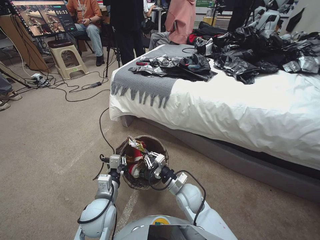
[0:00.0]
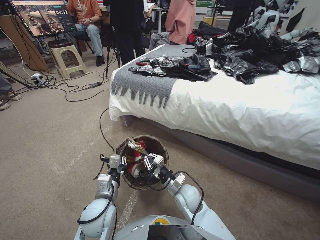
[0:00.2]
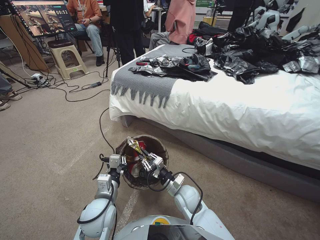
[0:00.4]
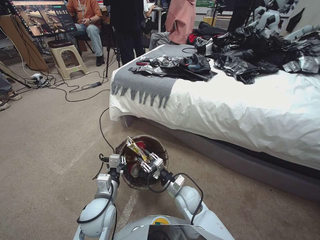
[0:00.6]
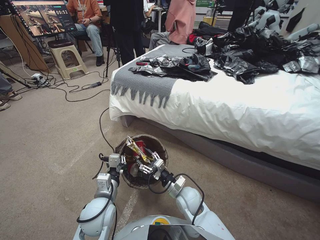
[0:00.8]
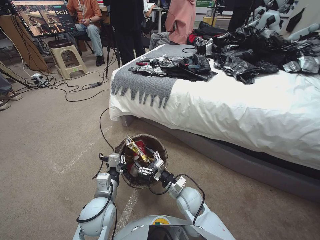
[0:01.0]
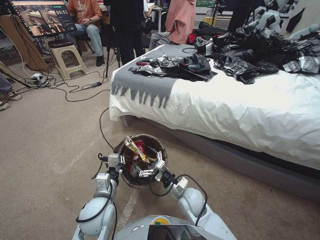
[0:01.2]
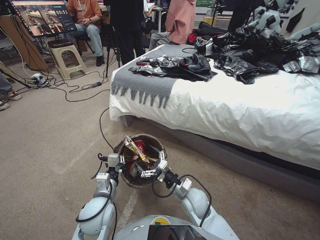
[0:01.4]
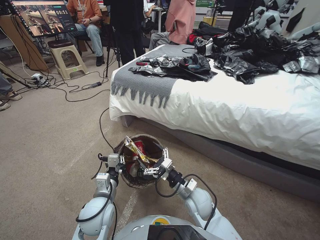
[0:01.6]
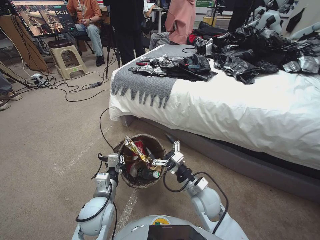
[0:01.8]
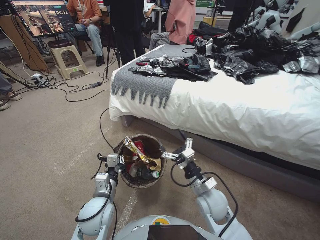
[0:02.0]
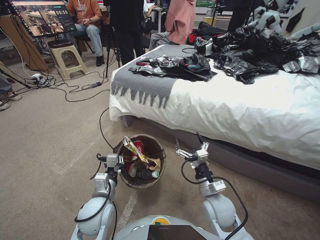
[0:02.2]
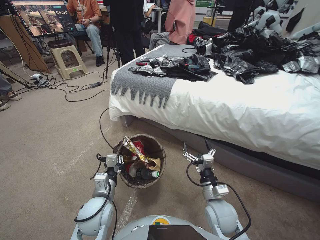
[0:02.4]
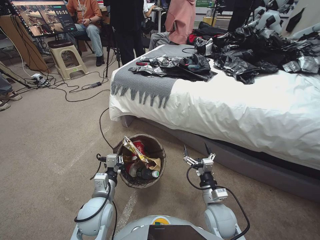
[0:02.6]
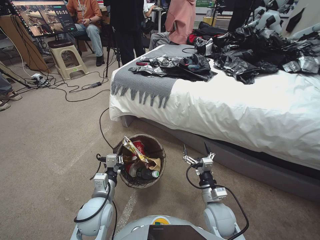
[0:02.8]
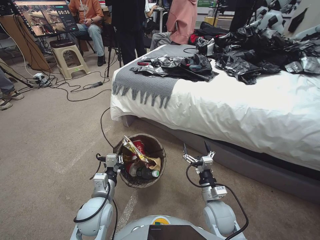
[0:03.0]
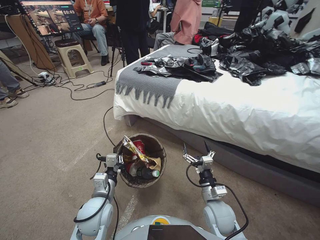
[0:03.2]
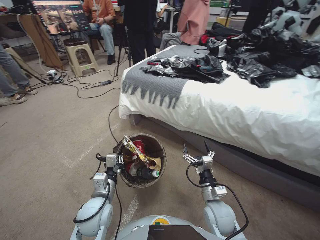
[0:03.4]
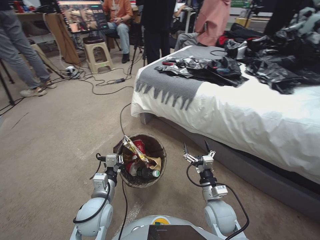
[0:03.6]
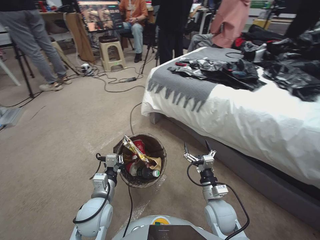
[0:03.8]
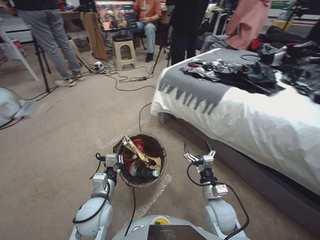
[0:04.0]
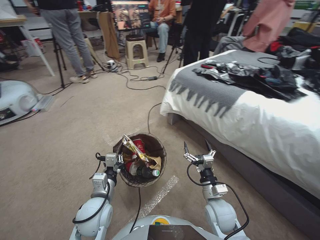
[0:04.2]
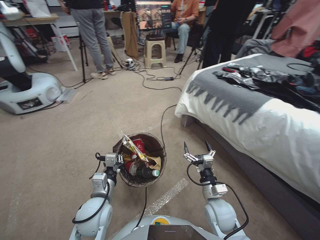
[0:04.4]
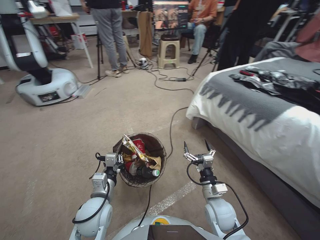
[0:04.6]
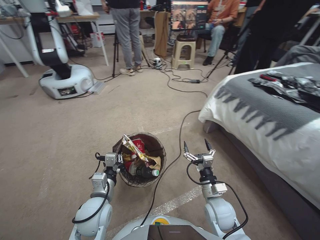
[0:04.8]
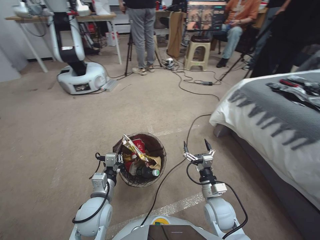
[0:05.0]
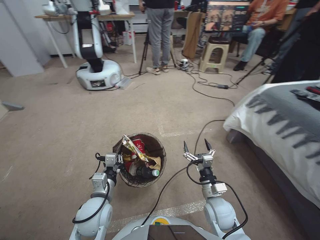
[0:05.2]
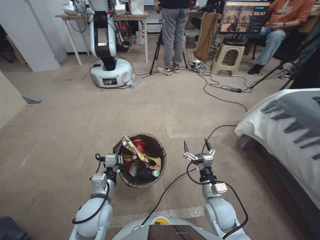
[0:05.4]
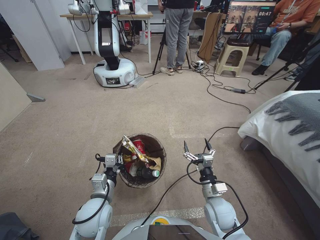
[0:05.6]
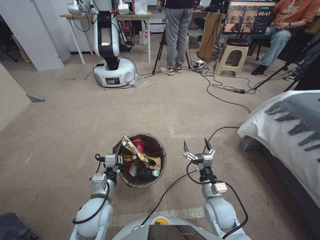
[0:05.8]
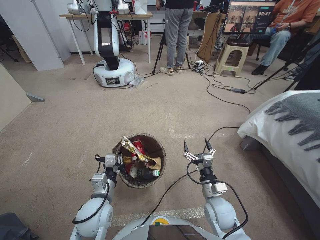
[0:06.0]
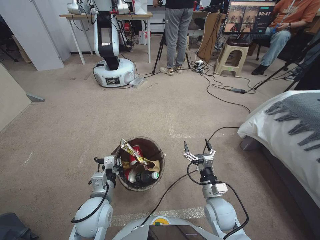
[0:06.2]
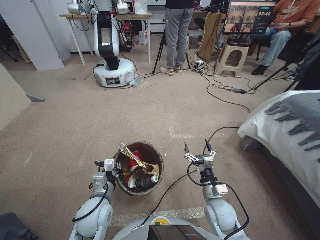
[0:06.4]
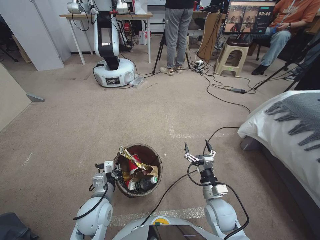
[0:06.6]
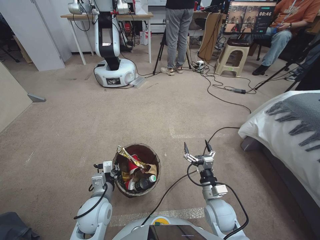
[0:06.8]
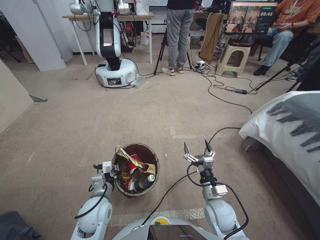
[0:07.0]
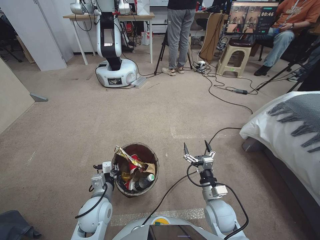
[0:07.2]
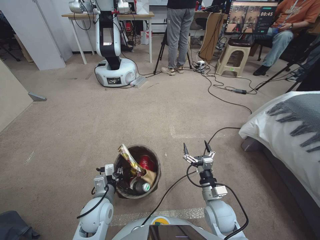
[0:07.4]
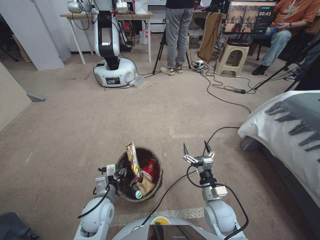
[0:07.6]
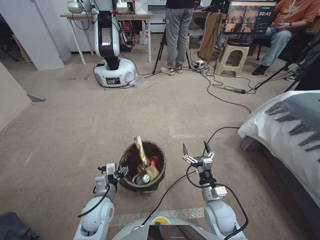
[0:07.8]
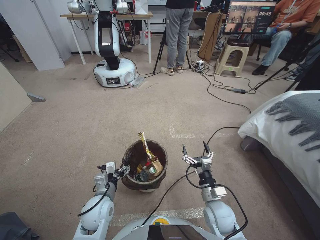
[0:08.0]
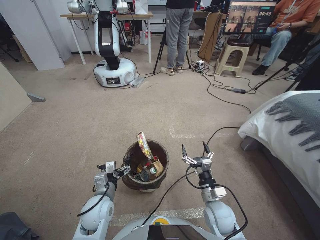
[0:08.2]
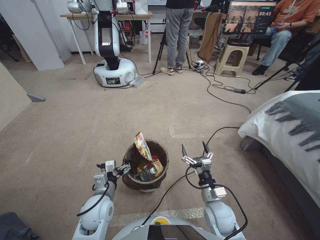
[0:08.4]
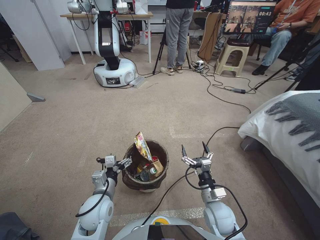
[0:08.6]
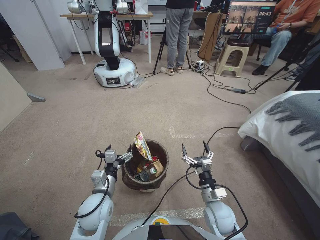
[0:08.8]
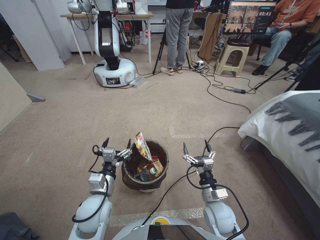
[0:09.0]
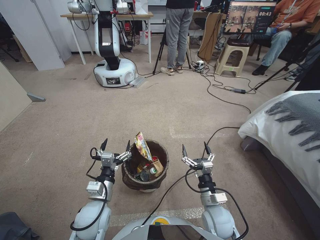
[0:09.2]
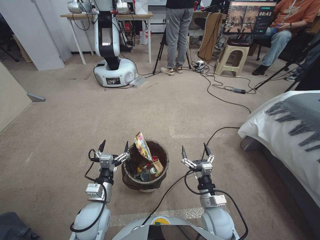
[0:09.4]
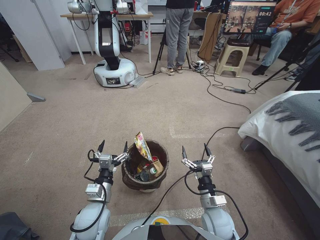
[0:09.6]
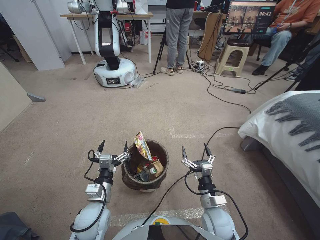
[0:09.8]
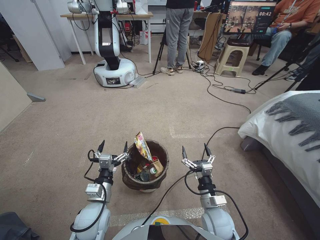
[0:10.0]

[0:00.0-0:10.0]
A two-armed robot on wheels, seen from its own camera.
Task of the whole recording: Pick up the trash bin, then pick up the garbage from the floor and place it into the trash bin.
0:00.0 to 0:01.4: The right gripper opens.
0:01.4 to 0:02.8: The right gripper heads to the right and backward, covering some 10 cm.
0:07.2 to 0:08.6: The left gripper opens.

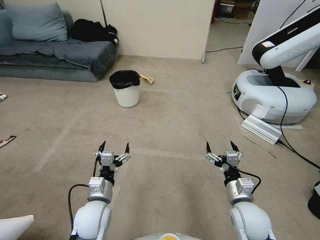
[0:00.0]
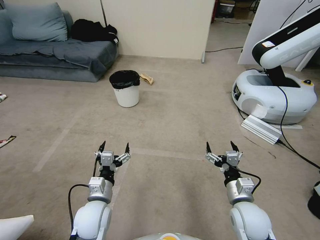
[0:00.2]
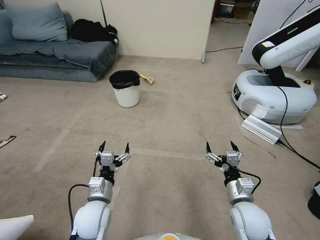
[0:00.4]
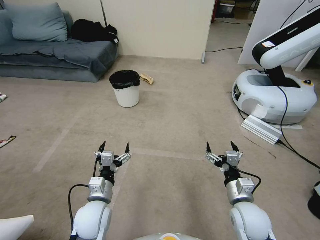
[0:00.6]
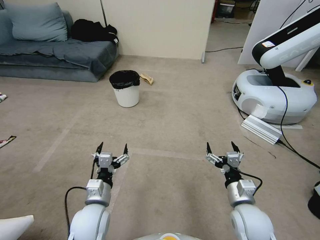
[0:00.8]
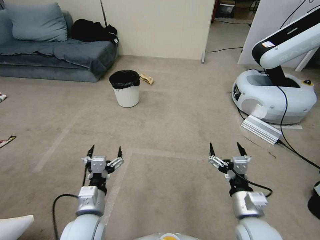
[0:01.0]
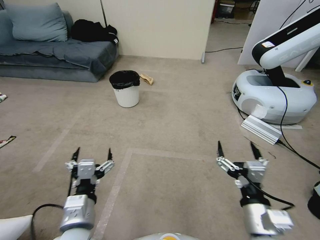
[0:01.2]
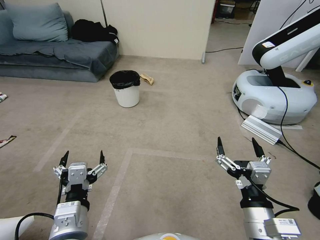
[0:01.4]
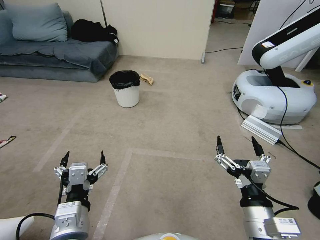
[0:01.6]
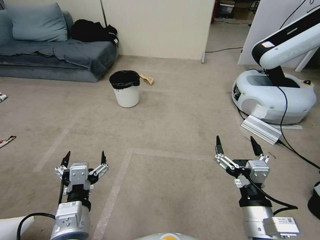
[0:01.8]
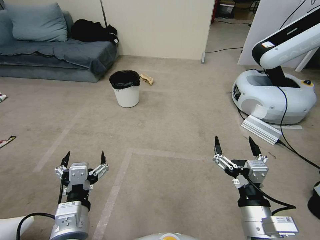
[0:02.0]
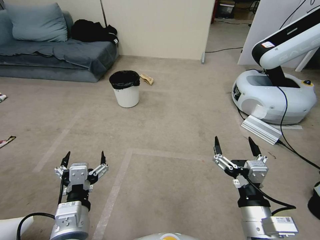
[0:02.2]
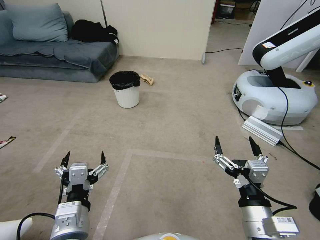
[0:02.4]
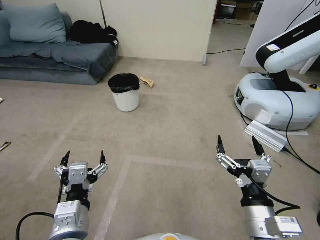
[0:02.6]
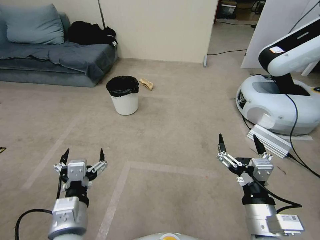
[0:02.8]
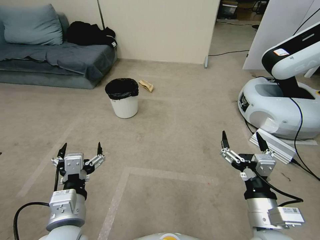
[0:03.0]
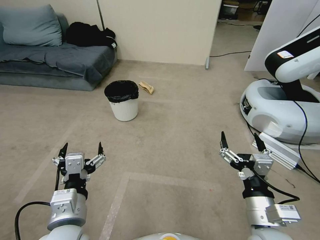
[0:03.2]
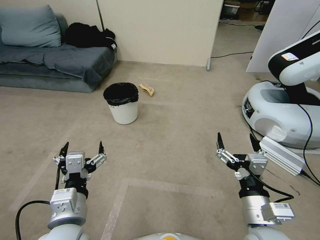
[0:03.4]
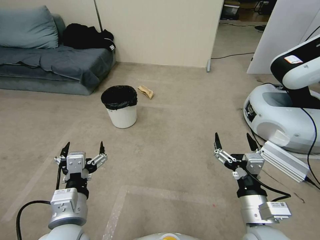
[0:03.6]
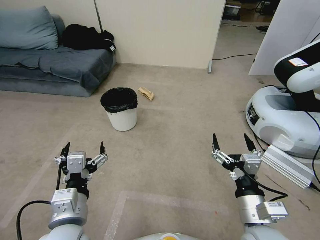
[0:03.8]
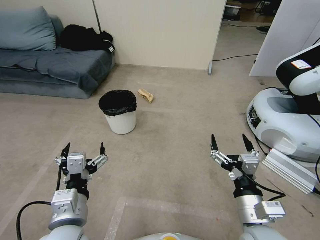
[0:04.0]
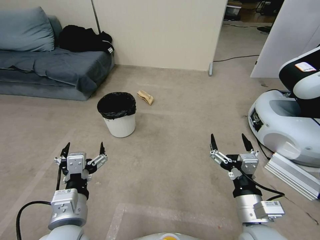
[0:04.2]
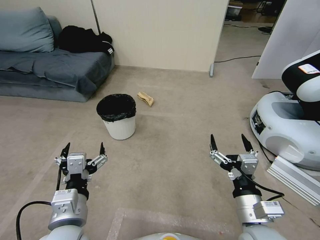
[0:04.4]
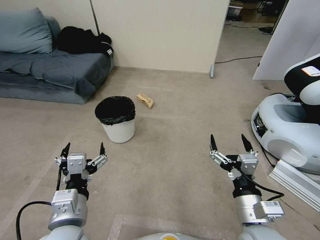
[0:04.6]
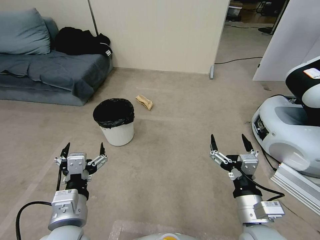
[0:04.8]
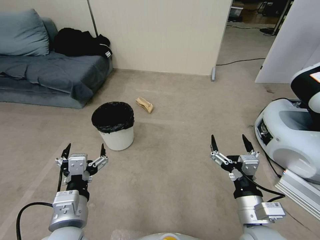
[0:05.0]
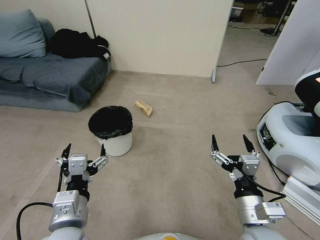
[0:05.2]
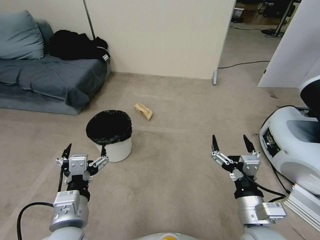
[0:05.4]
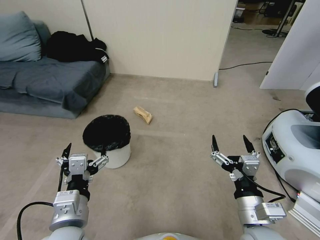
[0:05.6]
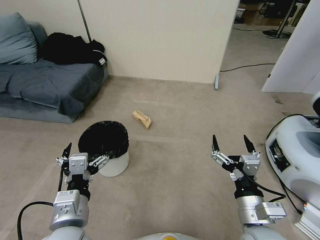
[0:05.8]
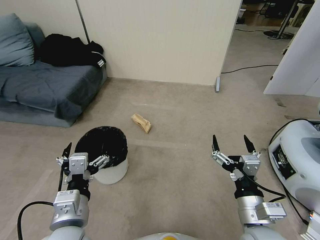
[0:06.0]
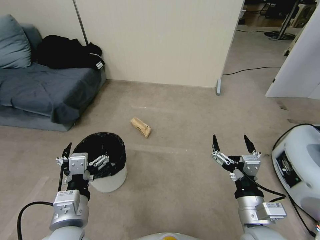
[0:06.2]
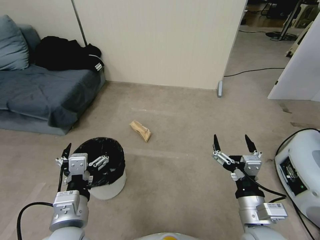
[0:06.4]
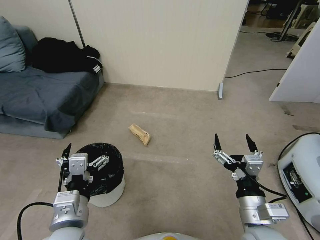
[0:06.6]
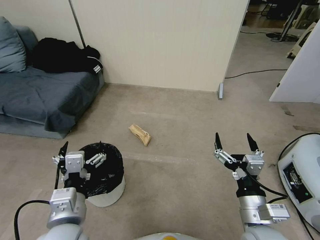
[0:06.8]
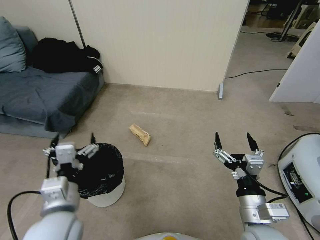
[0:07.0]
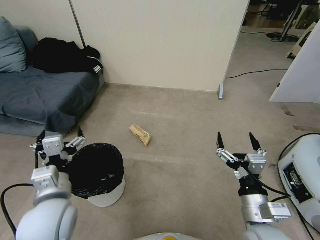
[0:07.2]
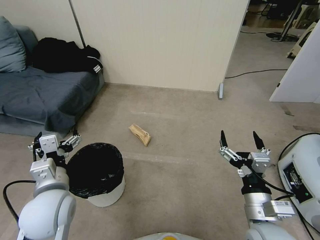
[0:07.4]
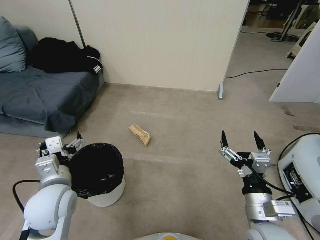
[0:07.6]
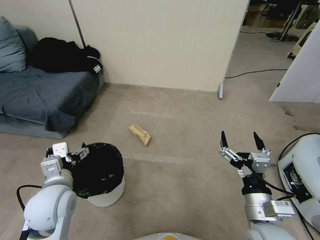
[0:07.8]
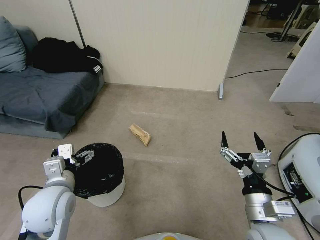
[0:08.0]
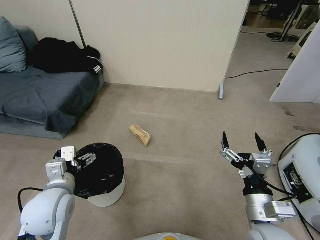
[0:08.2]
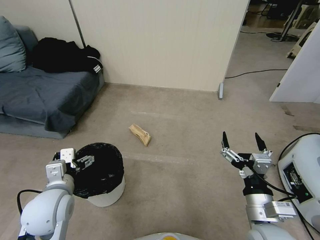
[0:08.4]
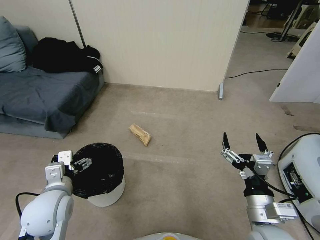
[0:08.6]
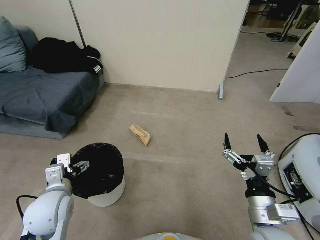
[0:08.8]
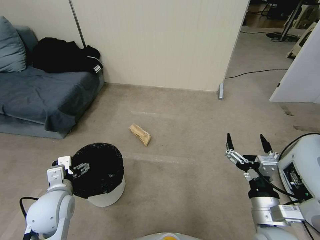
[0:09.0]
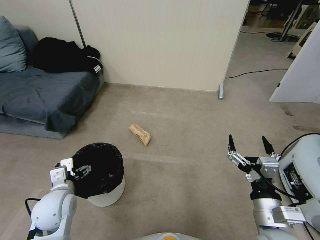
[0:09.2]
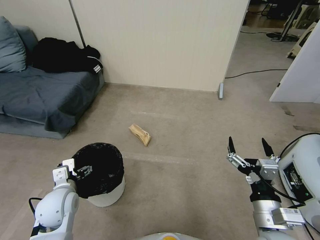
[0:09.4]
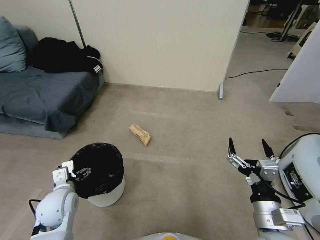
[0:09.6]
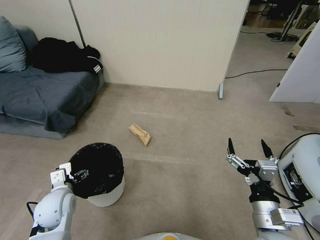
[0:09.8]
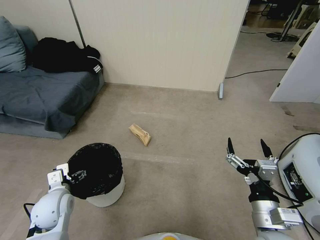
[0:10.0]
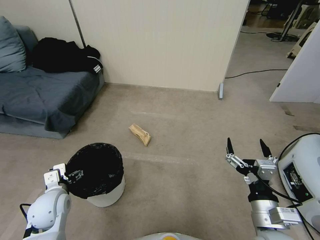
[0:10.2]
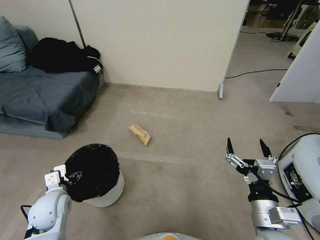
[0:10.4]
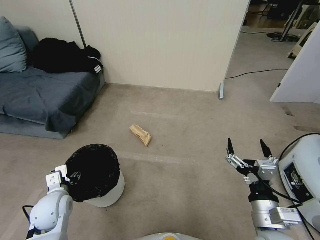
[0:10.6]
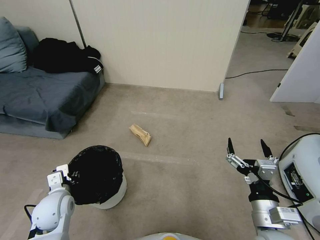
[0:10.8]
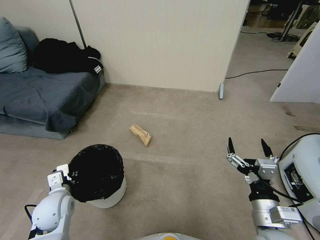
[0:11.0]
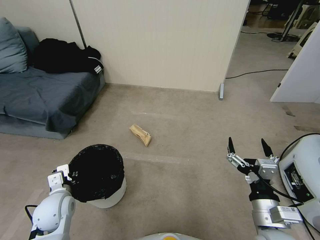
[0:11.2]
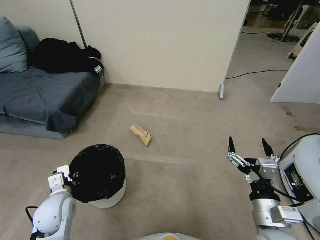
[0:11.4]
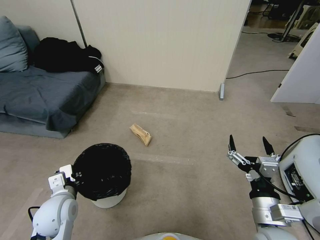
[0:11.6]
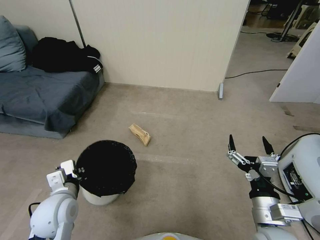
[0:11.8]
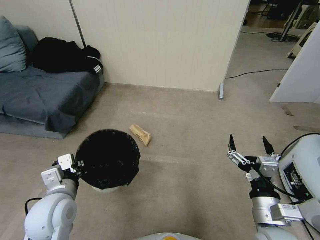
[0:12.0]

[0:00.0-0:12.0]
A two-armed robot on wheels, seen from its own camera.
Task of the whole recording: Pick up the trash bin, then pick up the garbage from the floor and place it into the trash bin.
0:06.0 to 0:07.6: The left gripper is displaced forward and to the left by about 10 cm.
0:07.6 to 0:09.0: The left gripper goes some 5 cm downward.
0:09.0 to 0:10.4: The left gripper is displaced downward by approximately 5 cm.
0:10.4 to 0:12.0: The left gripper travels upward and to the right by approximately 10 cm, and closes its fingers.
